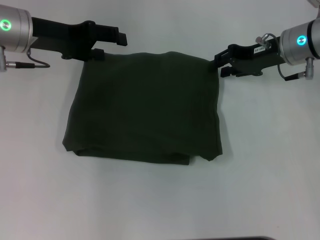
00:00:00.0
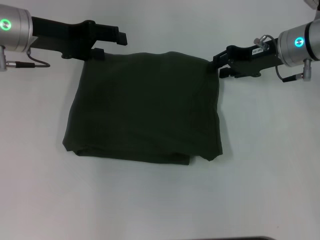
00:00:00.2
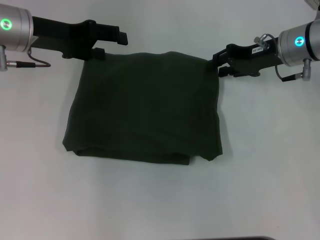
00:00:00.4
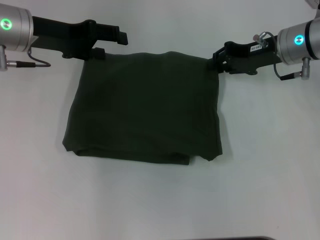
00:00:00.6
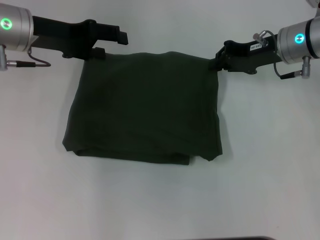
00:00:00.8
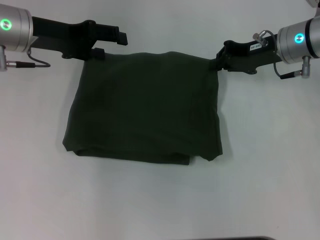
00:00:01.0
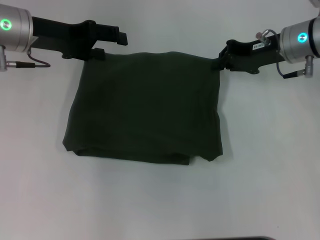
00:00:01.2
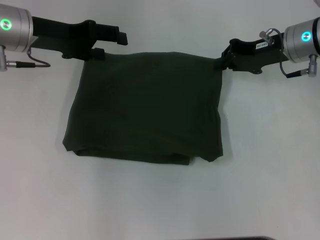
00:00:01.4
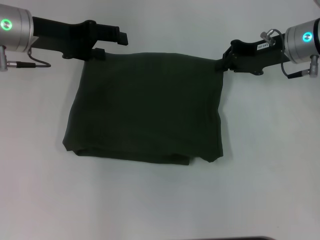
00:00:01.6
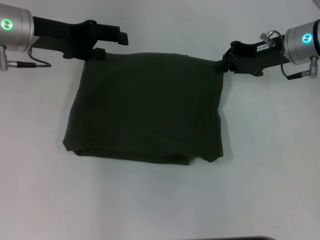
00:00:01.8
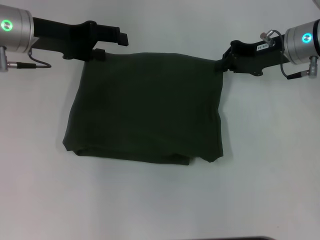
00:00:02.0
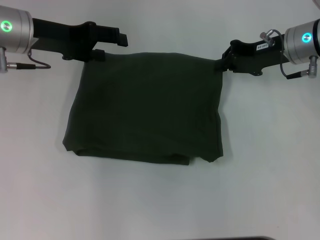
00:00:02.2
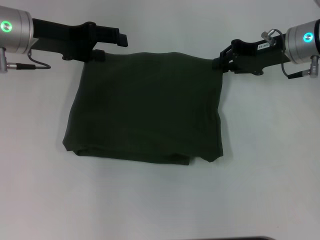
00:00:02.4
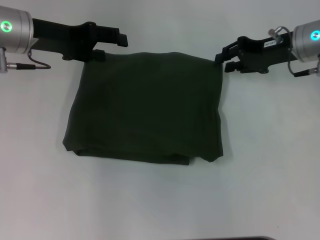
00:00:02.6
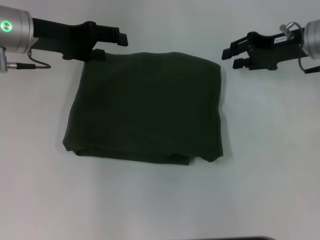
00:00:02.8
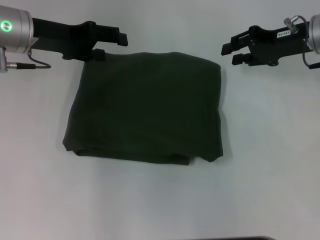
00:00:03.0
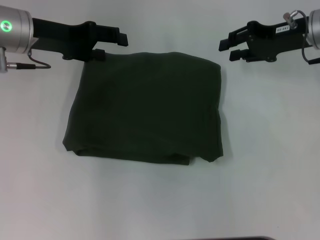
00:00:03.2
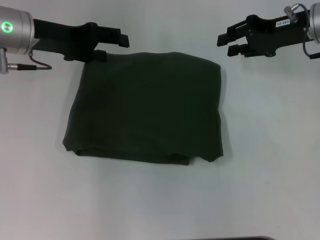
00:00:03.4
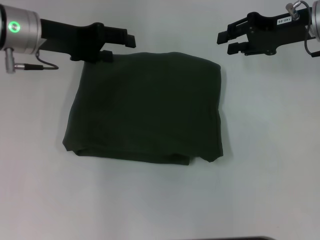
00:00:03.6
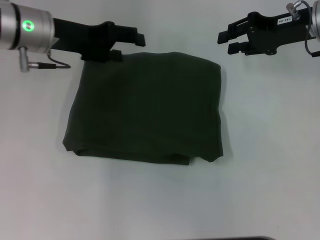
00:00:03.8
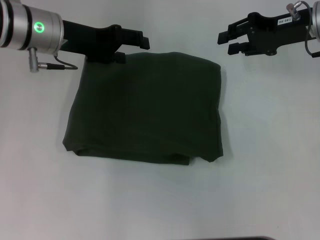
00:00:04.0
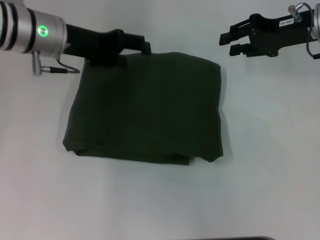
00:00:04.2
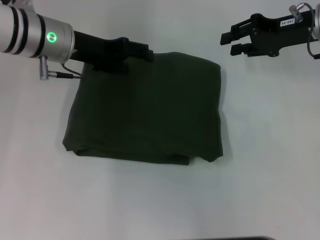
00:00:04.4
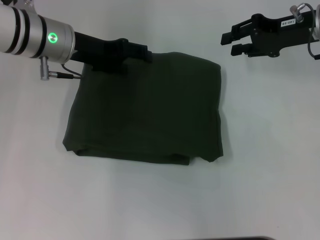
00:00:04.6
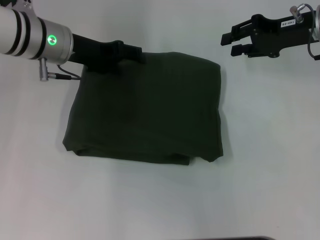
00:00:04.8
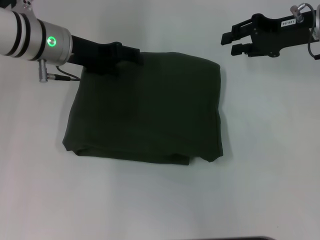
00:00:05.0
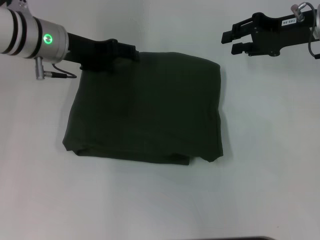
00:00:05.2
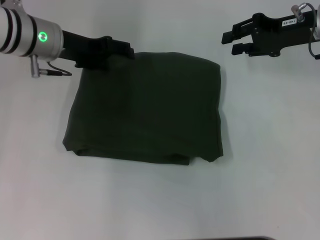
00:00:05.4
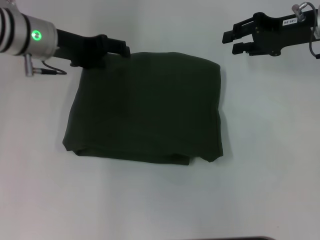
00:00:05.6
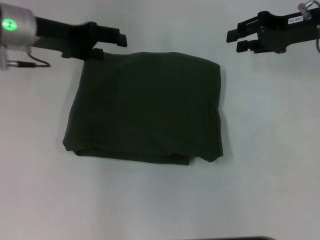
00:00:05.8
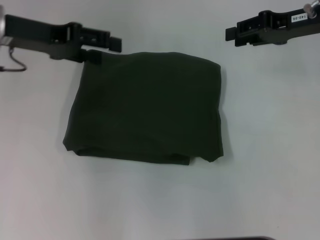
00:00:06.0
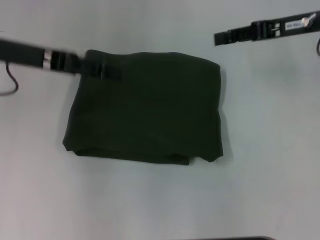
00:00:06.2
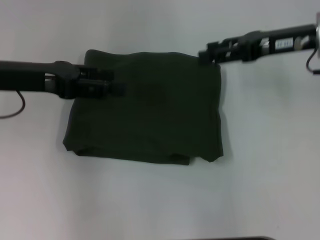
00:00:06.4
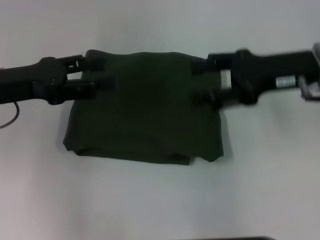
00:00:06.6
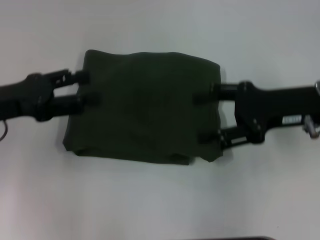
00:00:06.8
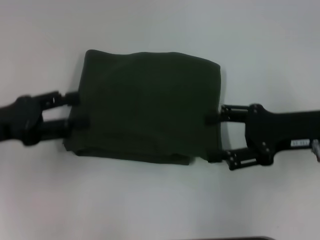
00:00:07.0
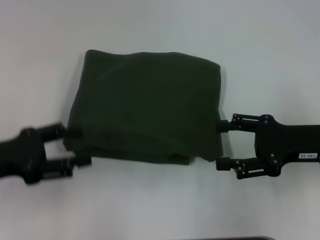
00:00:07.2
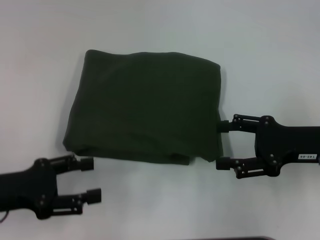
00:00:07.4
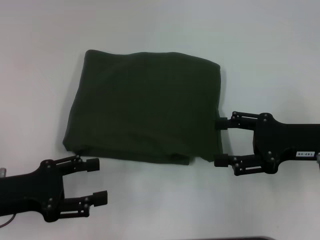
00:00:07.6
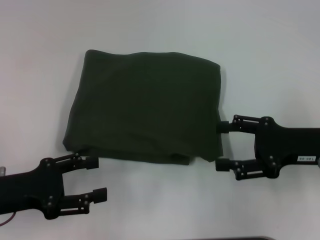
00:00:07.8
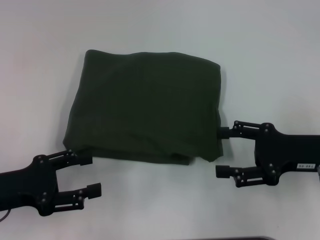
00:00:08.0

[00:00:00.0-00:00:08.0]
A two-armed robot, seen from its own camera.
00:00:00.0 to 00:00:01.6: The right gripper closes.
00:00:01.6 to 00:00:03.2: The right gripper opens its fingers.
00:00:03.2 to 00:00:04.8: The left gripper moves about 5 cm.
00:00:04.8 to 00:00:06.4: The left gripper moves backward and to the left, roughly 10 cm.
00:00:06.4 to 00:00:08.0: Both grippers travel together backward and downward, approximately 15 cm. The right gripper opens up.
